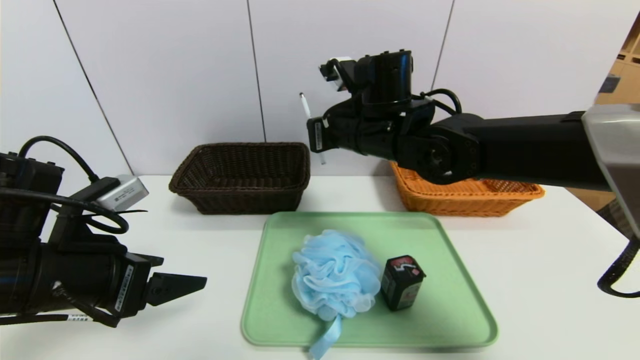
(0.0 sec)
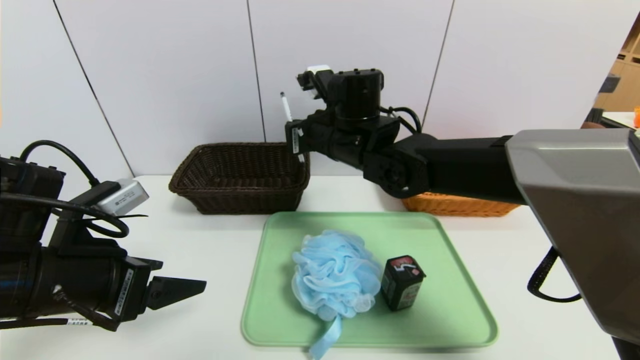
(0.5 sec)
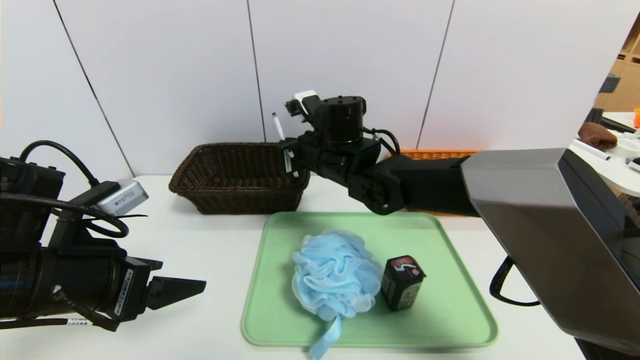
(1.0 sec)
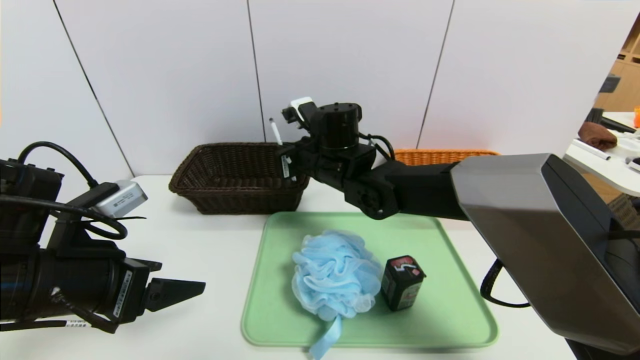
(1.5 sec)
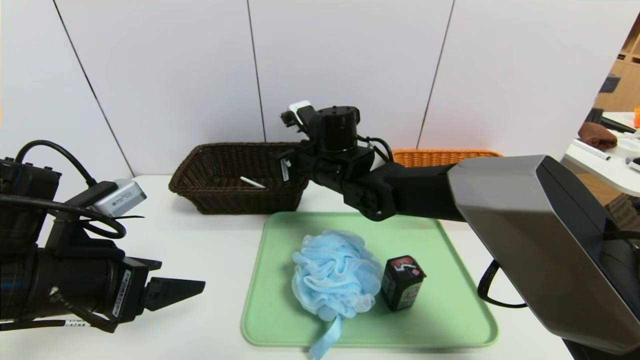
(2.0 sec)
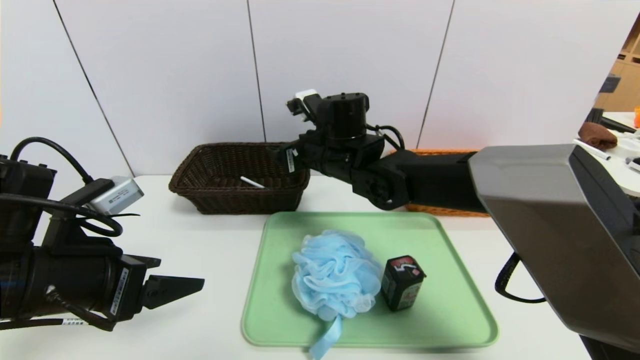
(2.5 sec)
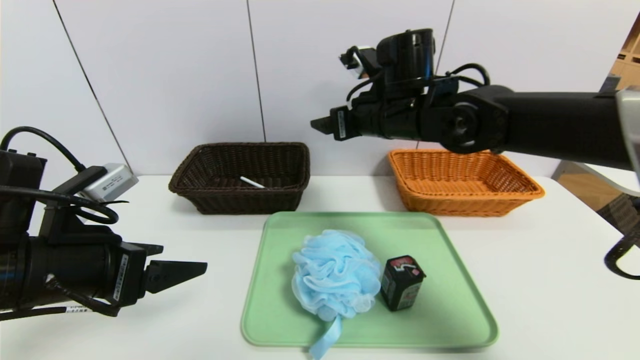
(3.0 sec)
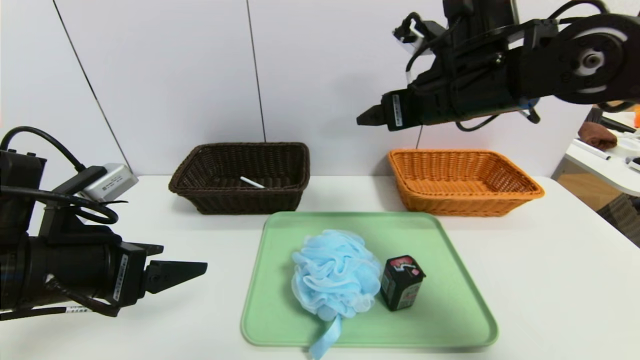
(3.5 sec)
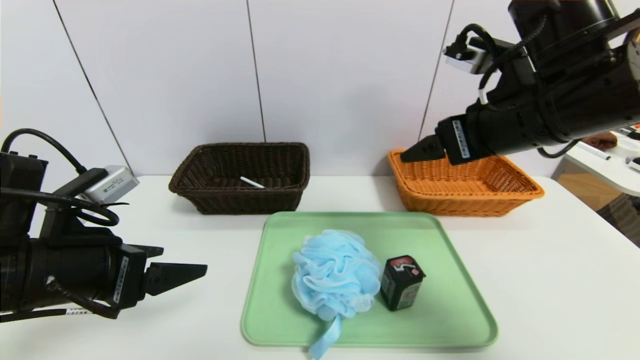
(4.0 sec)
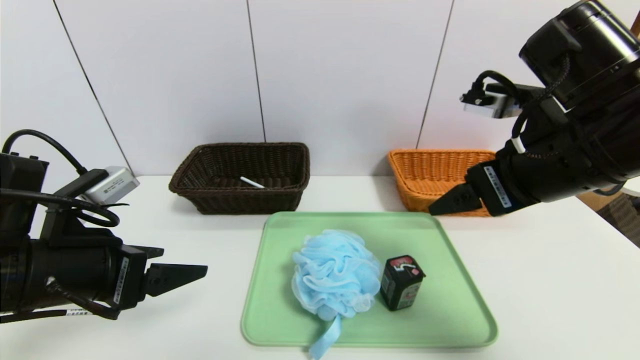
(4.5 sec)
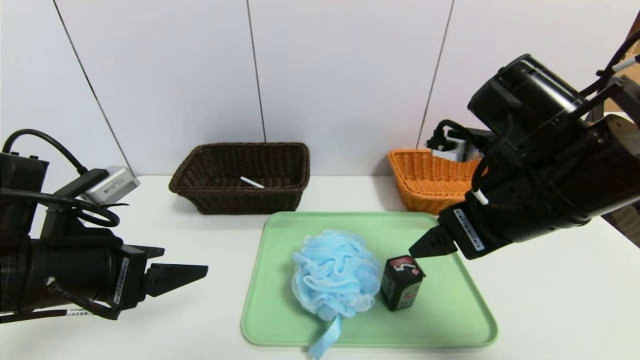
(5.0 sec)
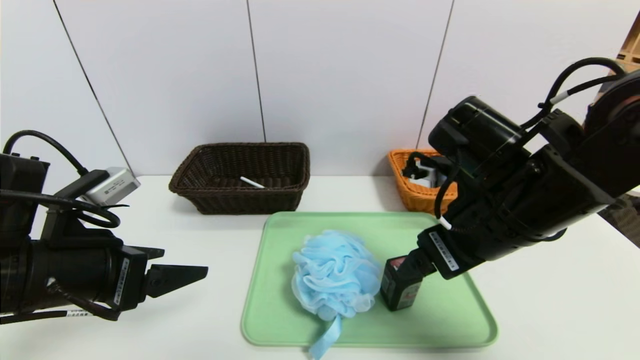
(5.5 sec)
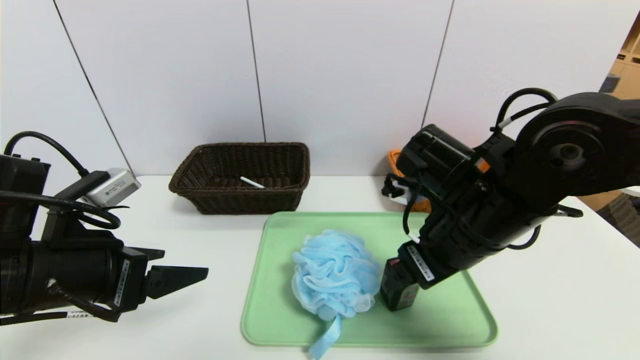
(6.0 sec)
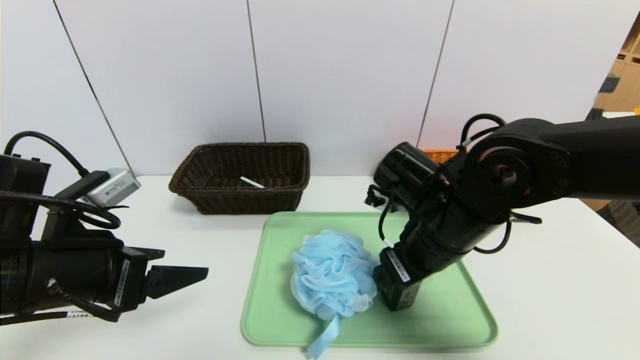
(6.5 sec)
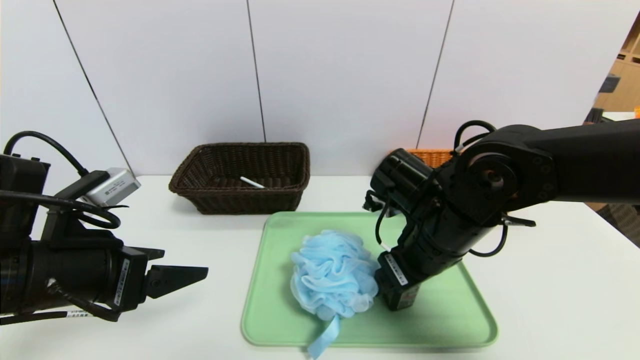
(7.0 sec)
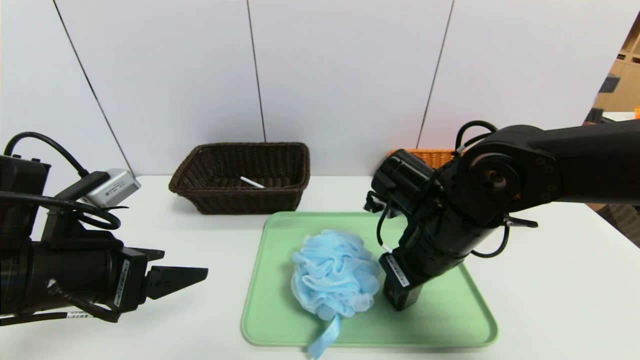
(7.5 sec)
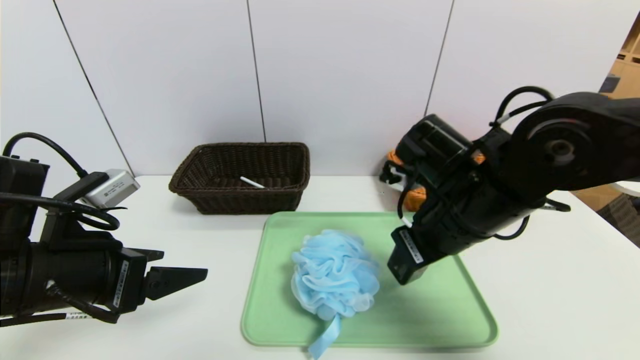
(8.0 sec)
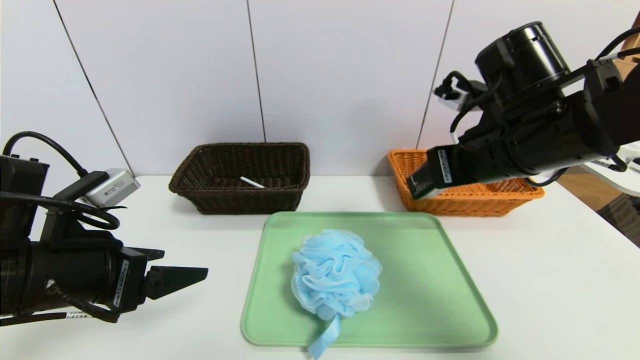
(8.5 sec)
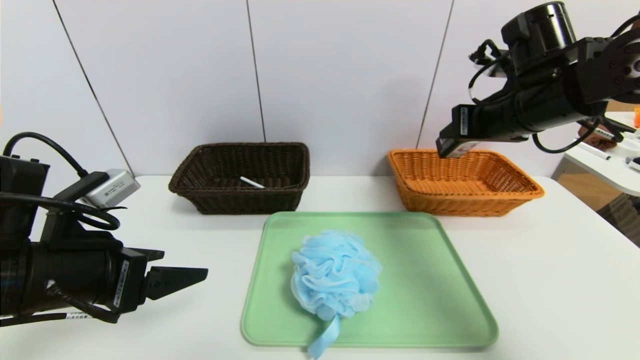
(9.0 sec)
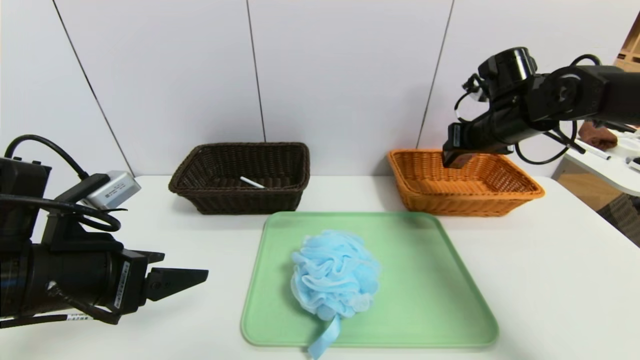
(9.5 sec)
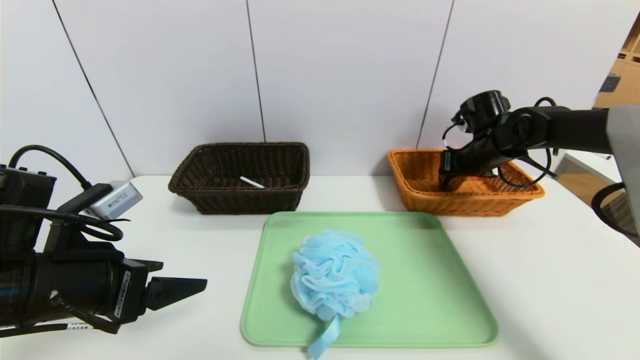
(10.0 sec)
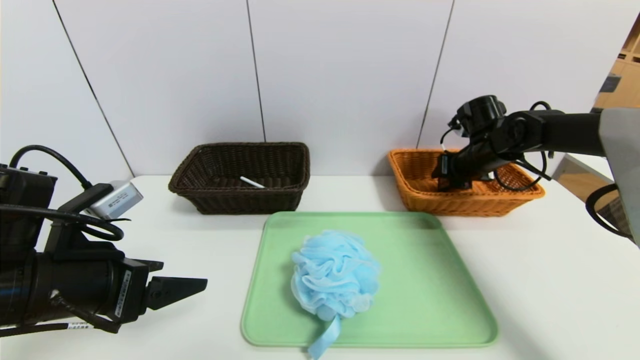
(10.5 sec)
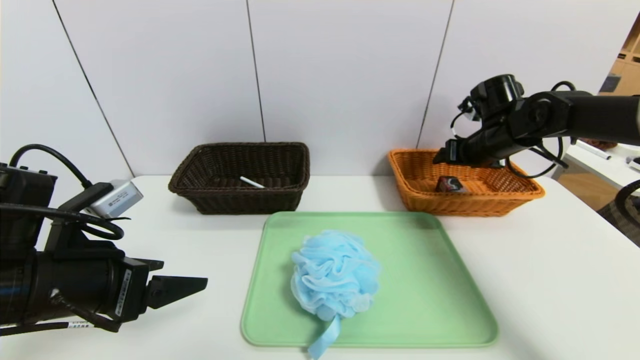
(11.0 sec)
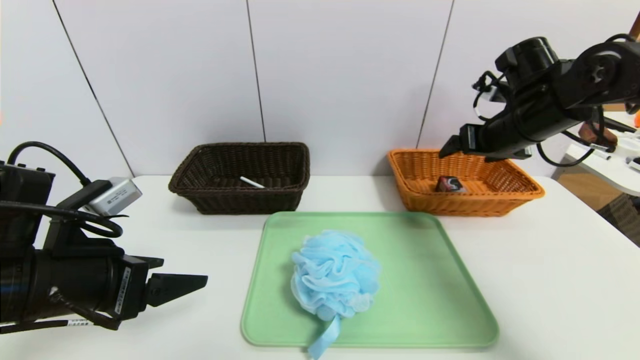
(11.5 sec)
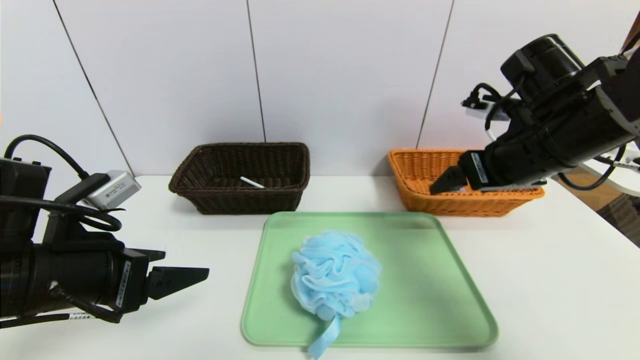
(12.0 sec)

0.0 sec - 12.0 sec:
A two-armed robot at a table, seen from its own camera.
Task of the whole recording: place the food in the right basket with the right gripper, and place the non food items in the left basket with the left gripper.
Step, 3.0 sec - 10.5 sec: Grasp the square chewing gum and put it in the right basket.
0.0 sec - 2.0 sec: The right gripper moves downward and to the left, approximately 10 cm, and opens its fingers.
2.0 sec - 4.0 sec: The right gripper heads to the right, backward and upward, covering roughly 25 cm, and opens its fingers.
4.0 sec - 6.0 sec: The right gripper travels downward by roughly 10 cm.
6.0 sec - 8.0 sec: The right gripper closes.
8.0 sec - 10.0 sec: The right gripper is displaced forward and to the right by some 25 cm.
10.0 sec - 12.0 sec: The right gripper heads backward and upward, covering some 20 cm, and opens.

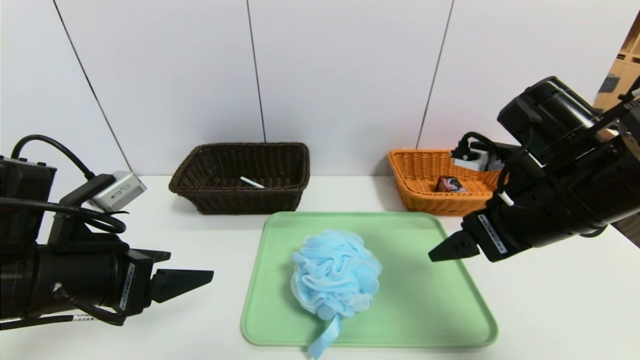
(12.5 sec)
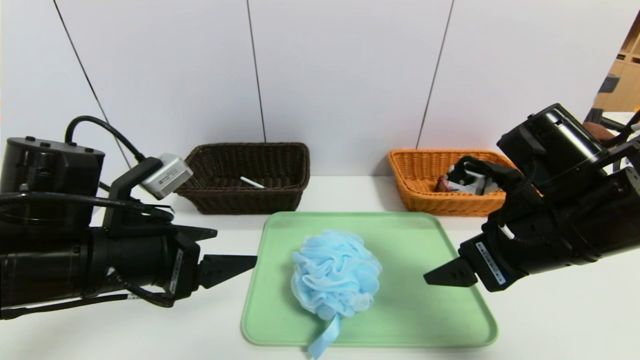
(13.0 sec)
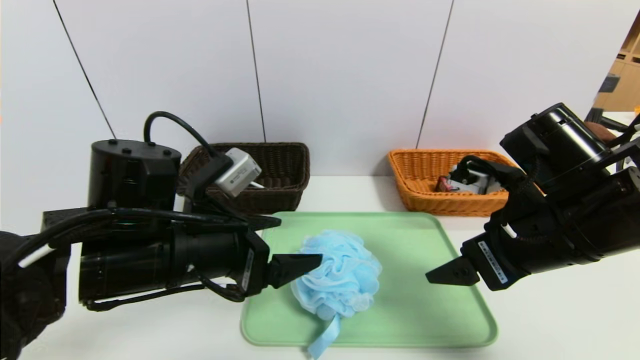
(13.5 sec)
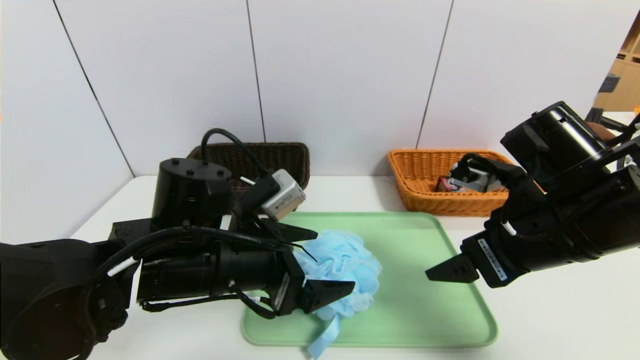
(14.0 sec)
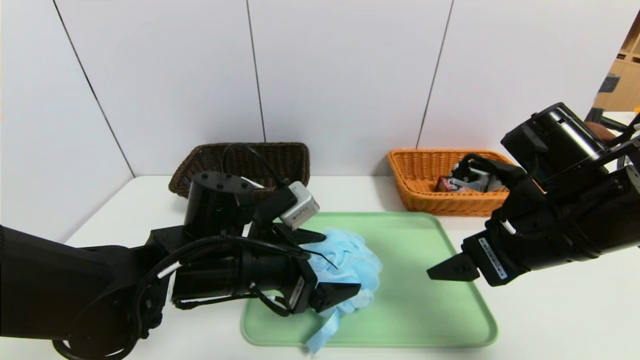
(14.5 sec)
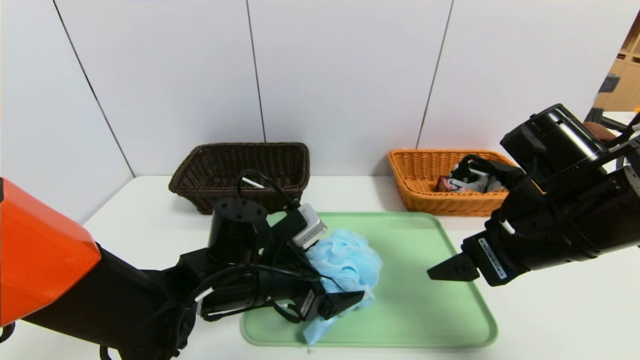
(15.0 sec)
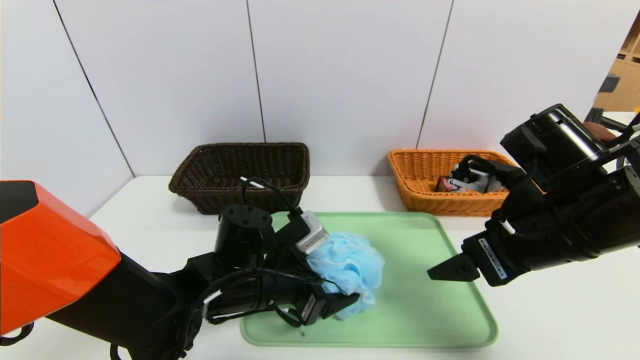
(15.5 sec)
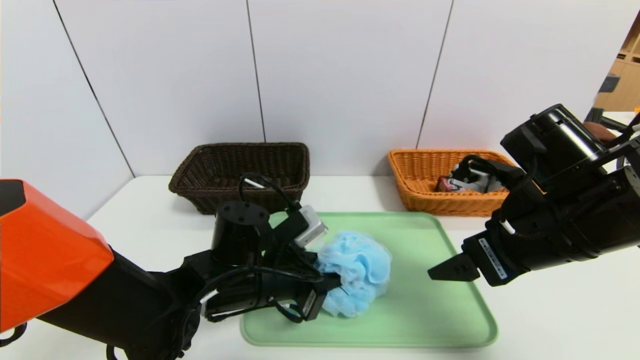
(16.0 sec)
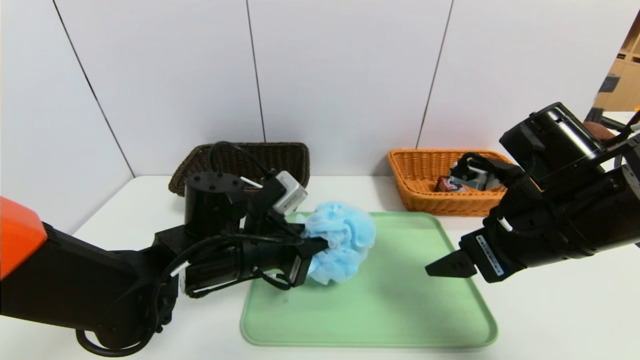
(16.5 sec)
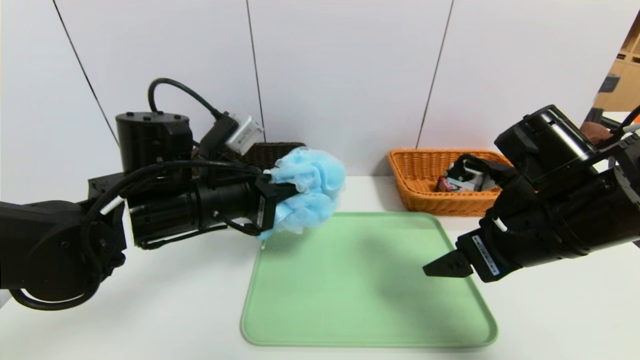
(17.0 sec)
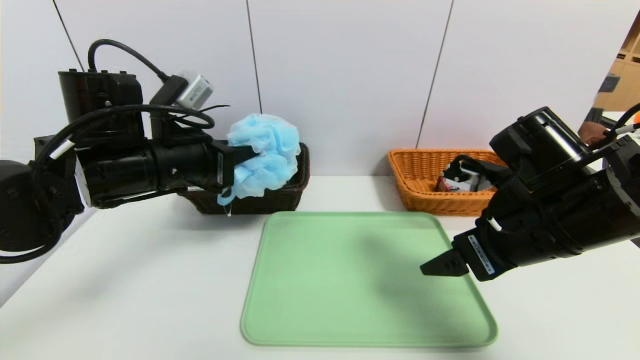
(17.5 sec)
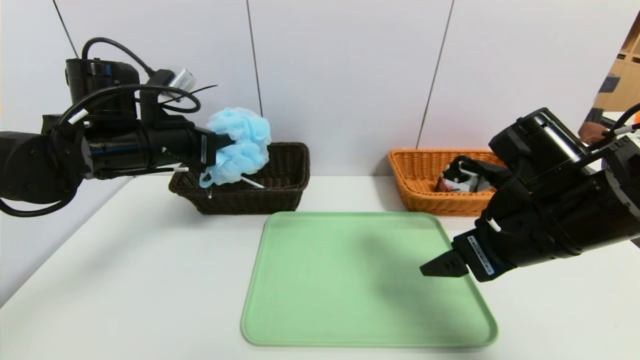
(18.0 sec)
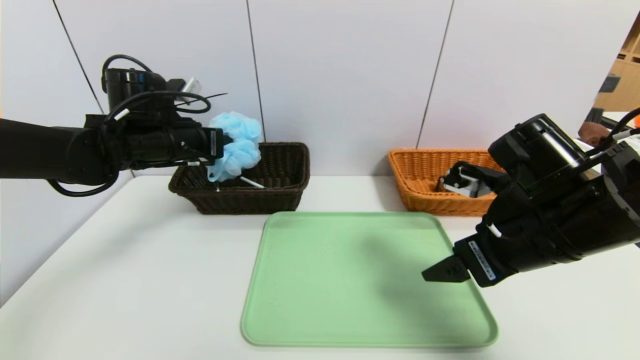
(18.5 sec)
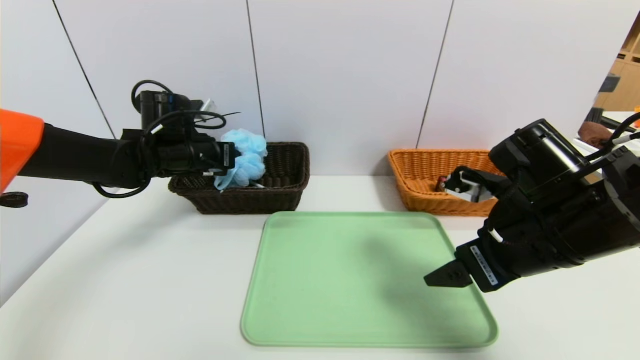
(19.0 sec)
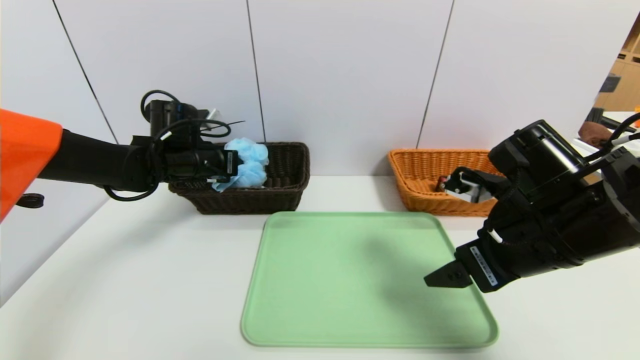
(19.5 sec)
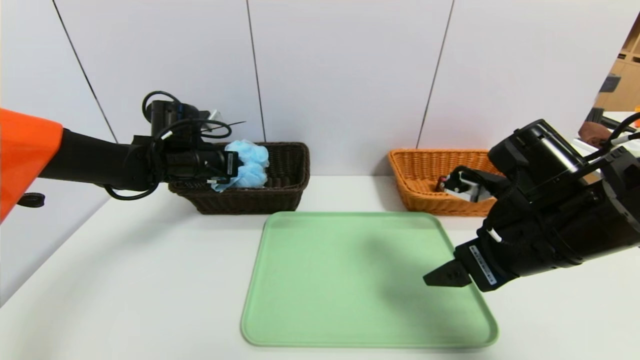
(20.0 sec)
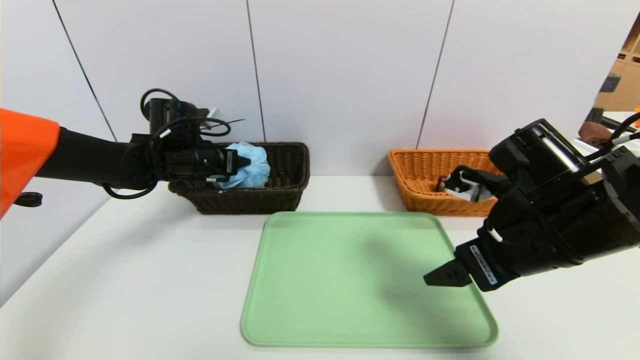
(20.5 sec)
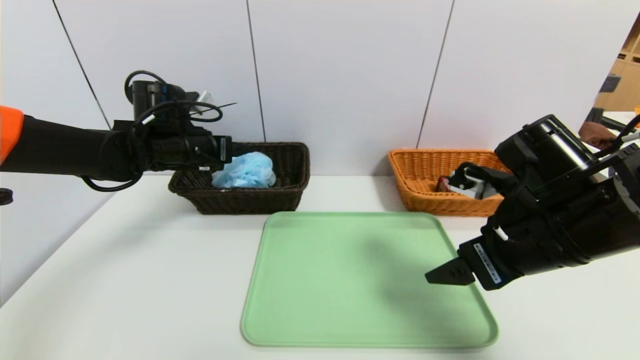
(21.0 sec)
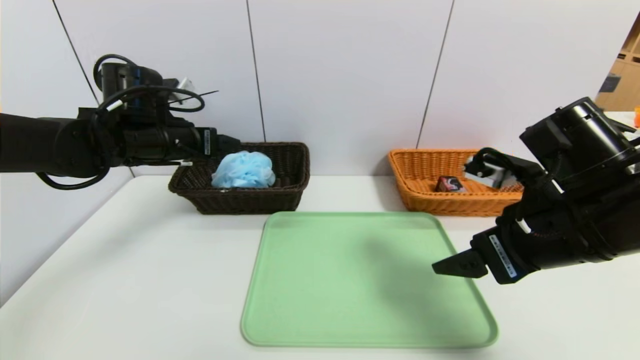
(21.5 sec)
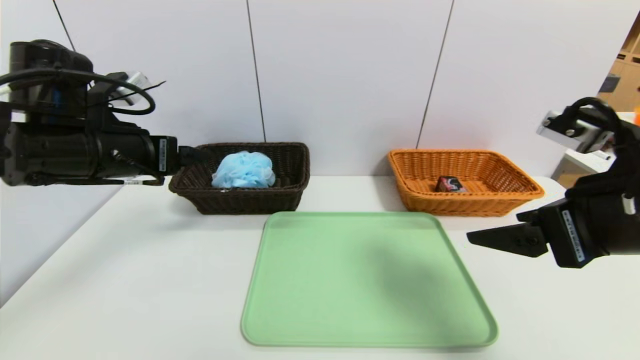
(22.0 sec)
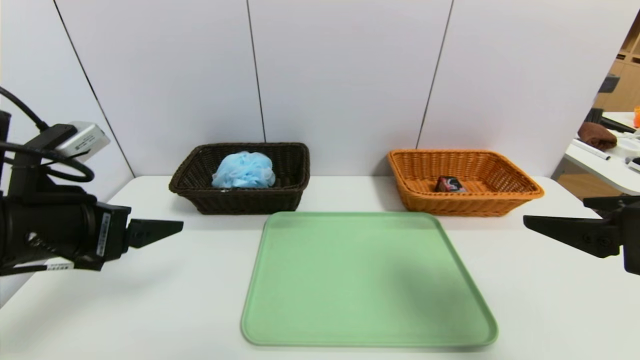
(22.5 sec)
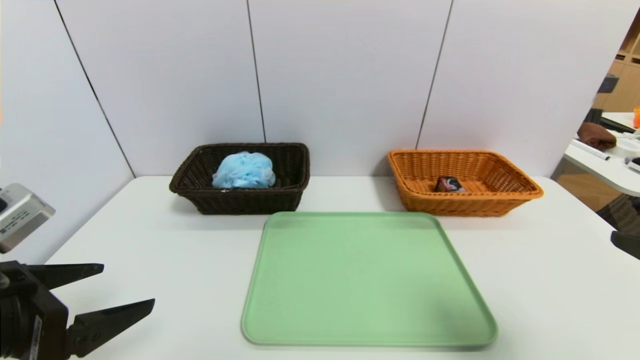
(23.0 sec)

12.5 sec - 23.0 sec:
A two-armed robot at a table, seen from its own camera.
Task of the whole recording: place the food in the right basket with the right gripper, and place the non food items in the left basket with the left gripper.
Step, 12.5 sec - 21.0 sec: Grasp the shower sphere and put it in the left basket.
12.5 sec - 14.5 sec: The left gripper heads to the right and forward, covering some 15 cm.
14.5 sec - 16.5 sec: The left gripper closes its fingers.
16.5 sec - 19.0 sec: The left gripper heads forward and to the left, covering roughly 20 cm.
19.0 sec - 21.0 sec: The left gripper opens its fingers.
21.0 sec - 23.0 sec: The left gripper travels backward by approximately 30 cm. Meanwhile the right gripper travels backward and to the right by roughly 20 cm.
